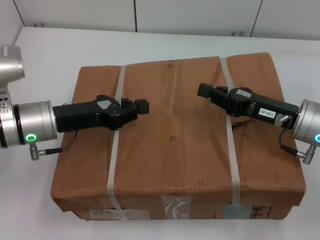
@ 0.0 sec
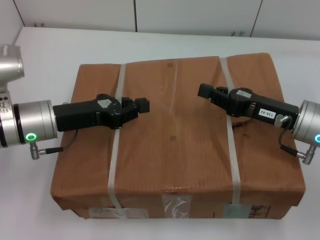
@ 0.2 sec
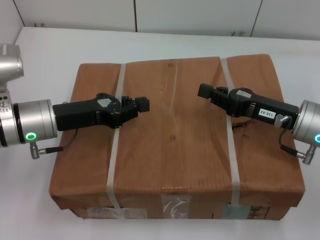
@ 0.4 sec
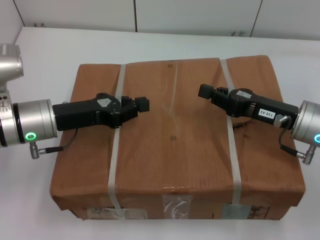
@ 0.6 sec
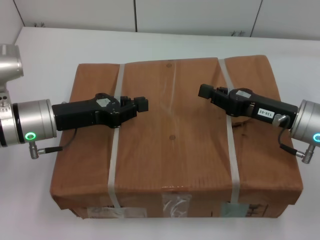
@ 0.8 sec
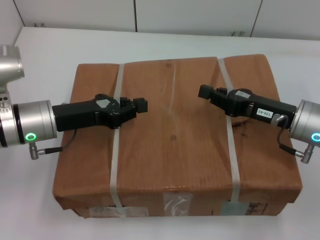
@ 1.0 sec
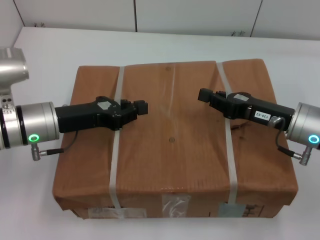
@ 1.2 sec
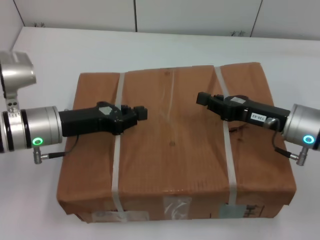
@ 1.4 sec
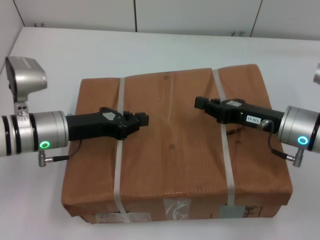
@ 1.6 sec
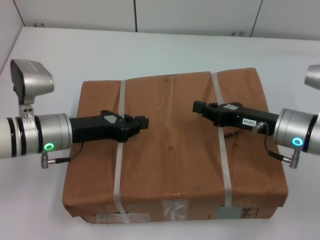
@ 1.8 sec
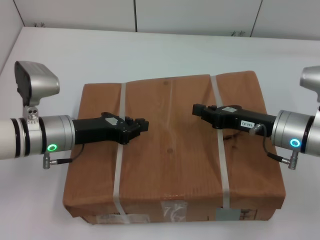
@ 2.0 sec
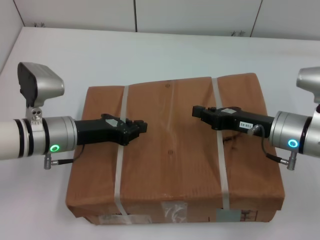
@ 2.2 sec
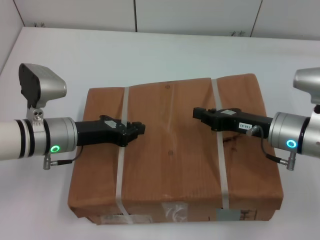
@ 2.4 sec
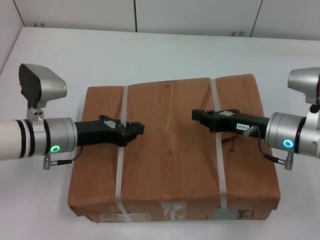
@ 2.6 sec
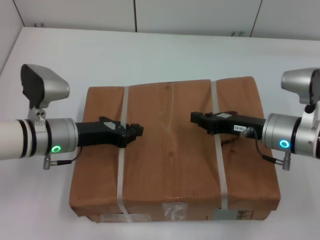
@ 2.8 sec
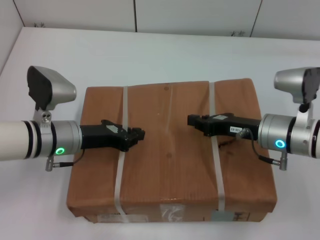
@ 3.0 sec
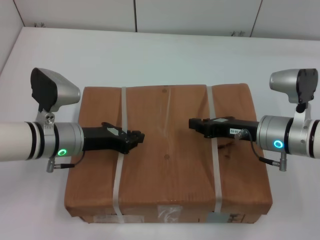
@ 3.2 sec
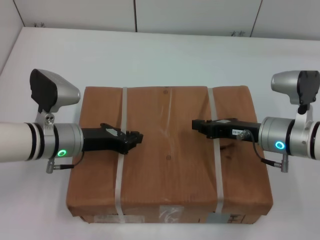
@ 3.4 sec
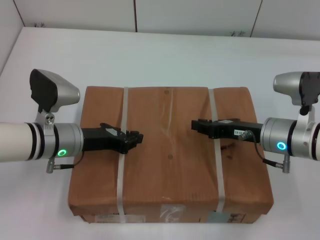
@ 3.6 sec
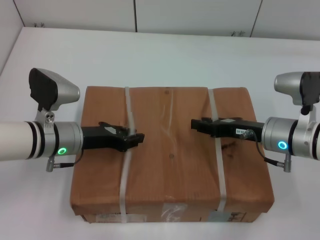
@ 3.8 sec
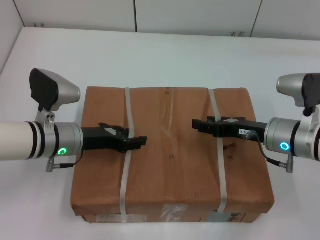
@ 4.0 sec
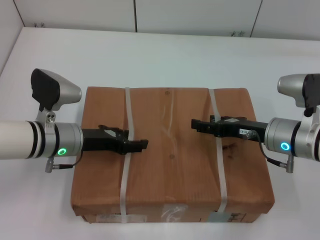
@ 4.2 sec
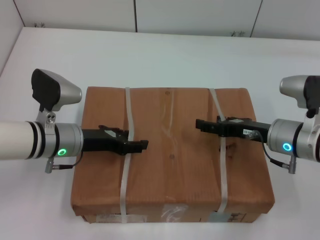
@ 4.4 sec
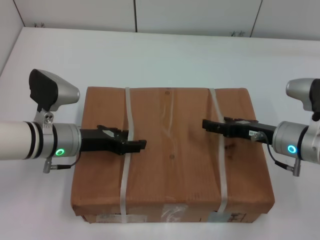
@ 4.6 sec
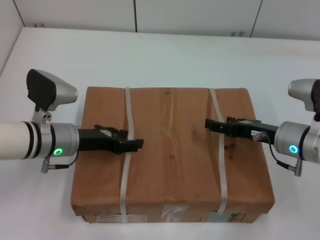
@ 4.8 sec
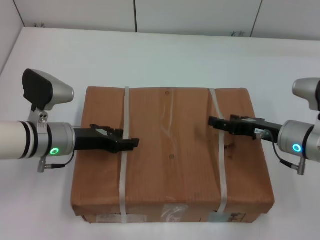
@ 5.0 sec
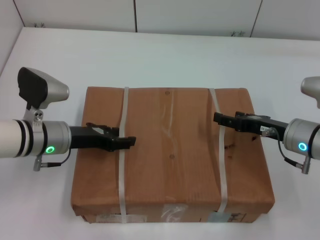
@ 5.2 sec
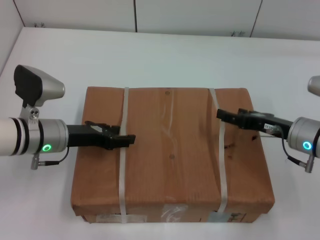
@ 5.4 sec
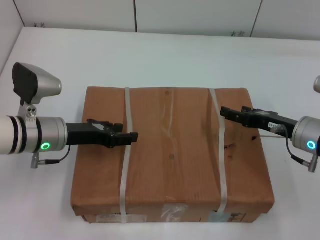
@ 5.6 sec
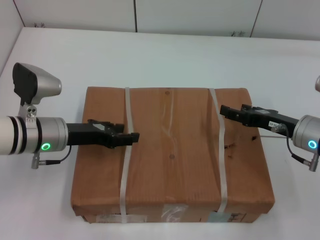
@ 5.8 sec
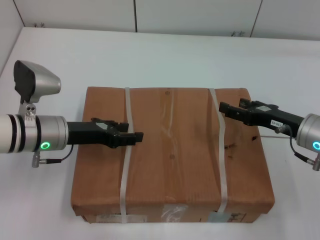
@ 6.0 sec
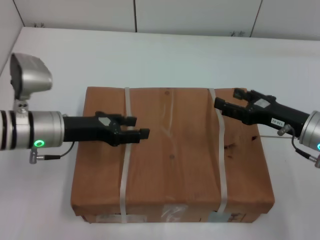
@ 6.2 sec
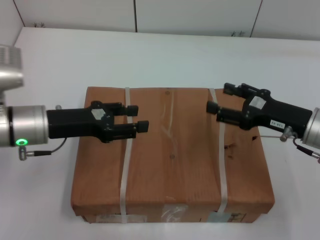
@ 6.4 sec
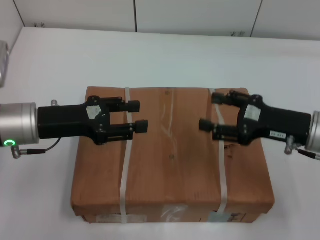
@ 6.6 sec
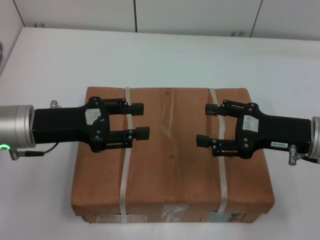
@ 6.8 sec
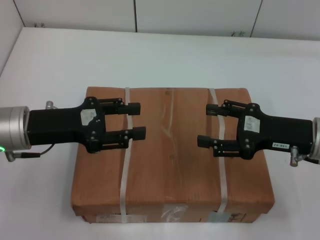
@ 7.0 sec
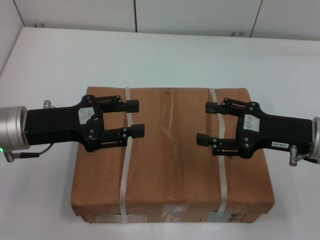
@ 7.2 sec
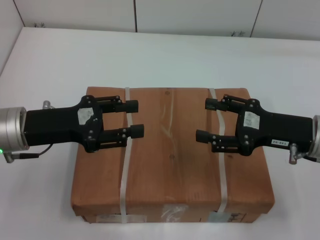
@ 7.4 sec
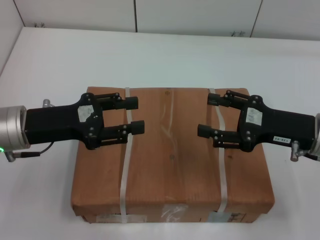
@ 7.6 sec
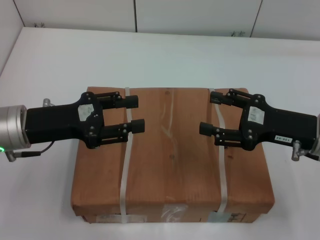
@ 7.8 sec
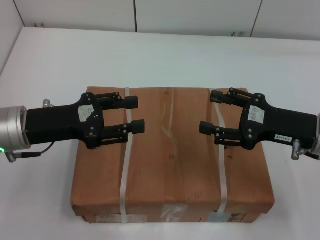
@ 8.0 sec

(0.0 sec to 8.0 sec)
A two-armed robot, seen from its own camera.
Task of the whole recording: place the box on the table with both arms.
Step, 0.0 sec - 3.6 sec: Place the box on the table with left gripper.
Step, 0.0 sec - 3.6 sec: Place the box on the table with right gripper.
Step, 3.8 sec - 5.4 sec: Loosen the box on the table with left gripper.
Step, 3.8 sec - 5.4 sec: Loosen the box on the table with right gripper.
3.2 sec - 4.8 sec: The right gripper opens up, while the left gripper opens its fingers.
4.8 sec - 6.4 sec: The right gripper shifts by about 5 cm, while the left gripper shifts approximately 5 cm upward.
6.4 sec - 8.0 sec: The grippers stay close to where they were, moving slightly.
